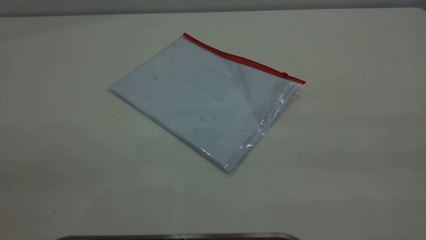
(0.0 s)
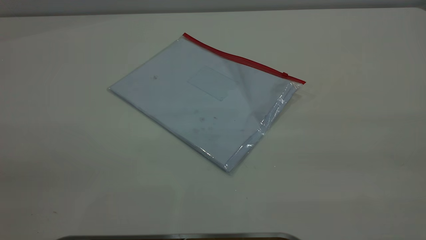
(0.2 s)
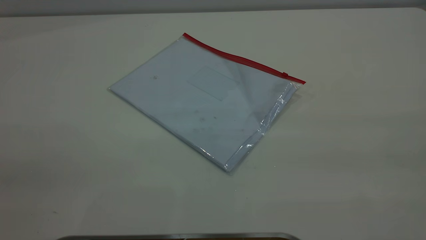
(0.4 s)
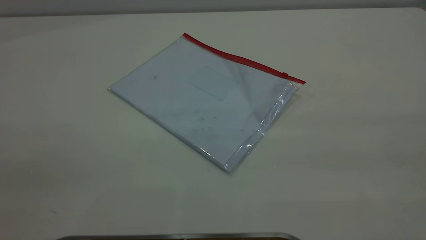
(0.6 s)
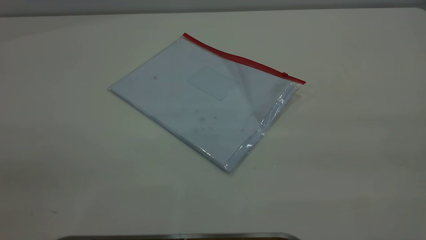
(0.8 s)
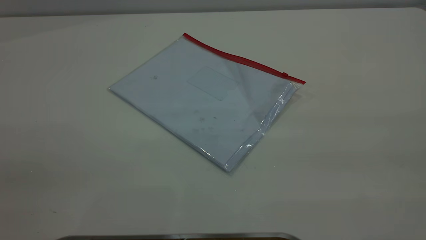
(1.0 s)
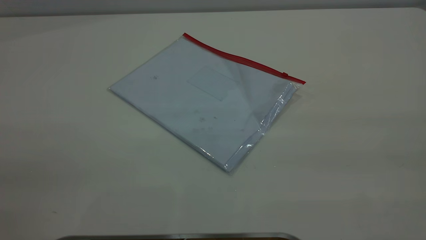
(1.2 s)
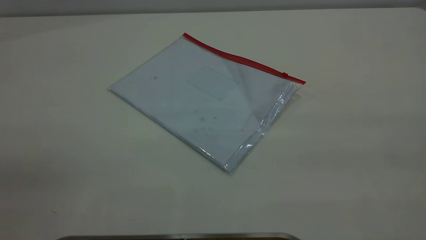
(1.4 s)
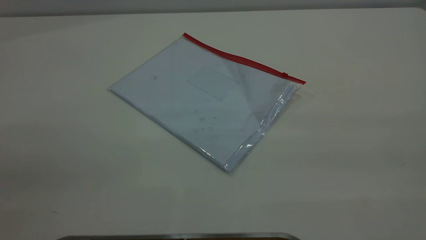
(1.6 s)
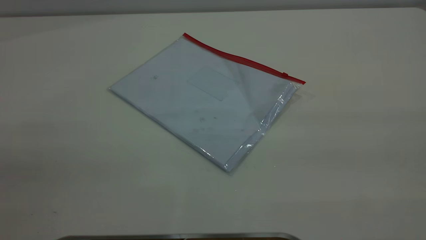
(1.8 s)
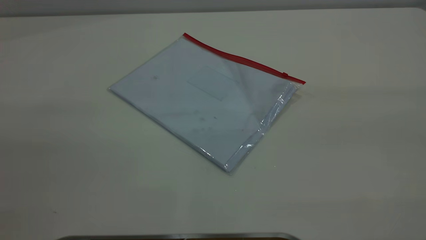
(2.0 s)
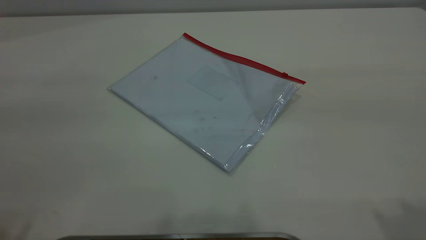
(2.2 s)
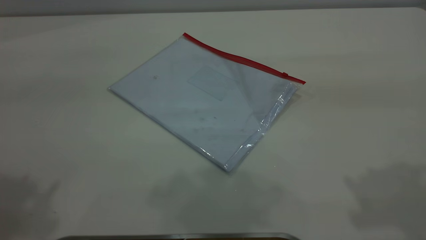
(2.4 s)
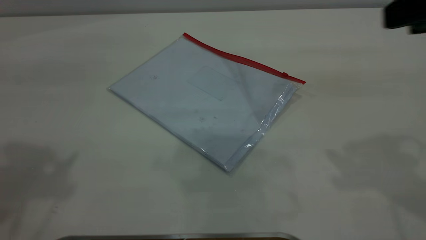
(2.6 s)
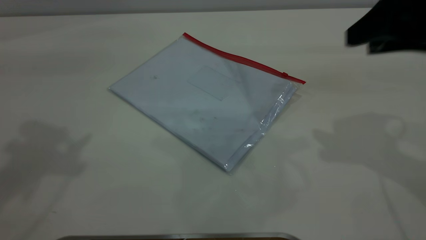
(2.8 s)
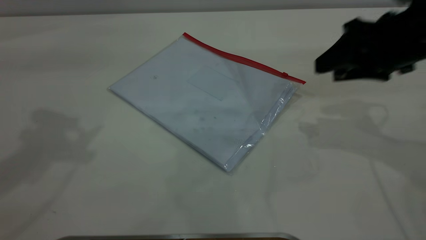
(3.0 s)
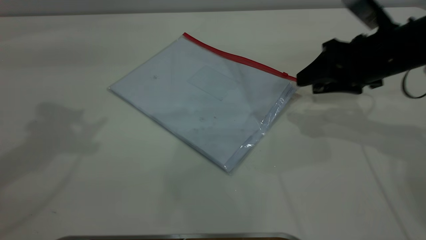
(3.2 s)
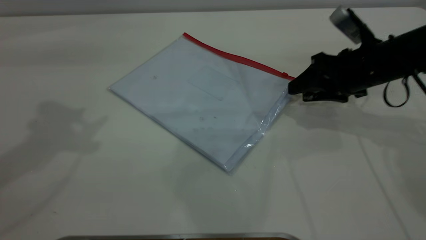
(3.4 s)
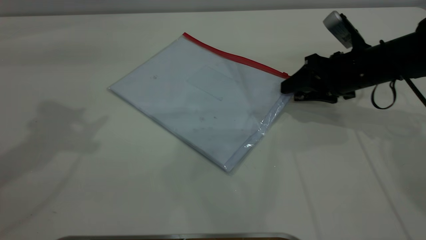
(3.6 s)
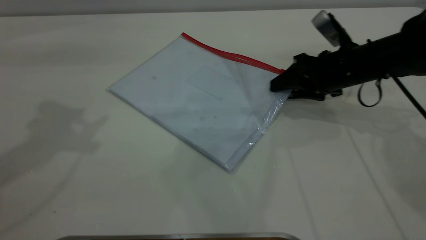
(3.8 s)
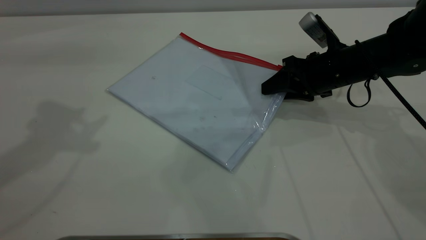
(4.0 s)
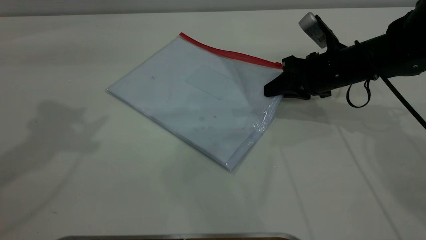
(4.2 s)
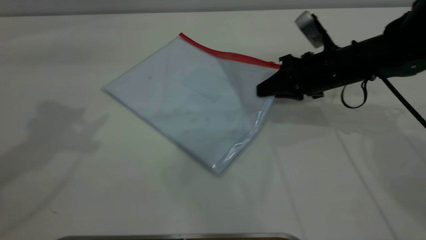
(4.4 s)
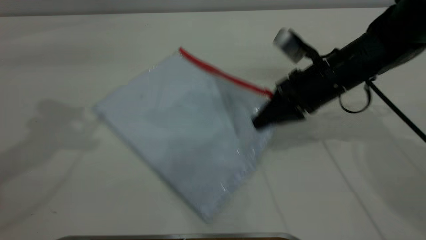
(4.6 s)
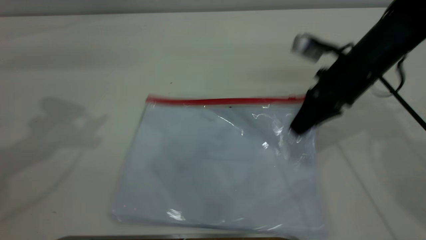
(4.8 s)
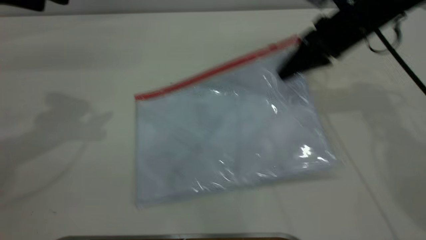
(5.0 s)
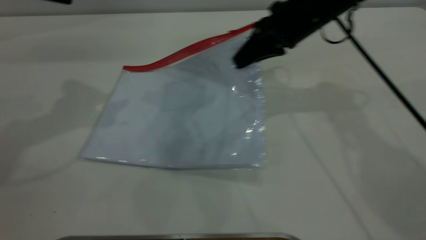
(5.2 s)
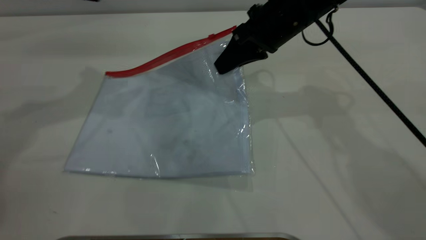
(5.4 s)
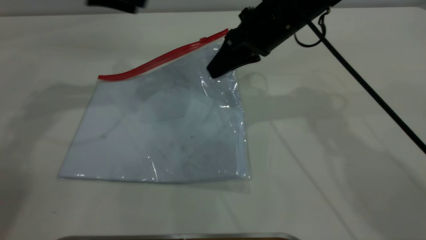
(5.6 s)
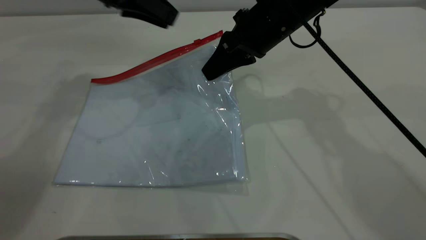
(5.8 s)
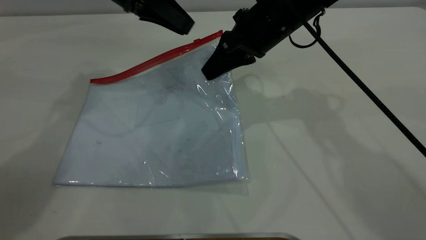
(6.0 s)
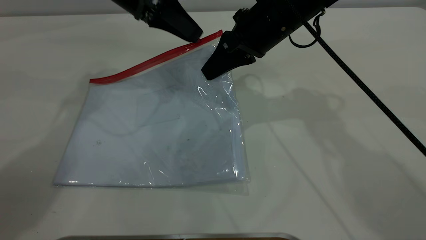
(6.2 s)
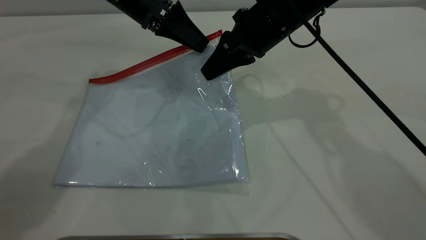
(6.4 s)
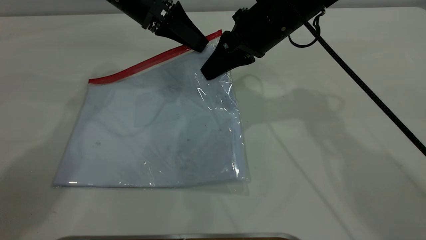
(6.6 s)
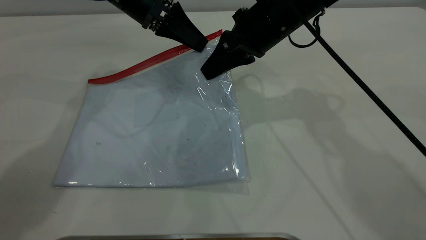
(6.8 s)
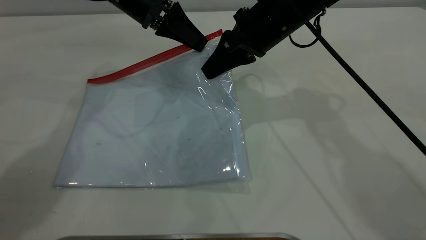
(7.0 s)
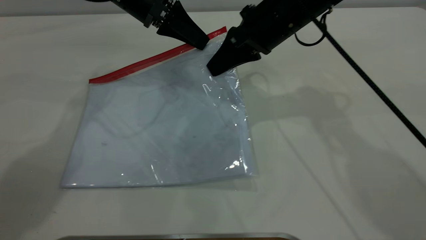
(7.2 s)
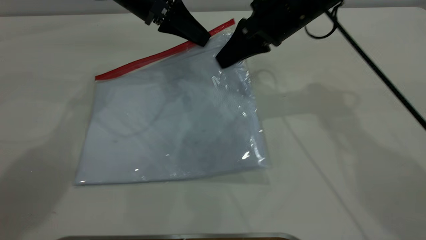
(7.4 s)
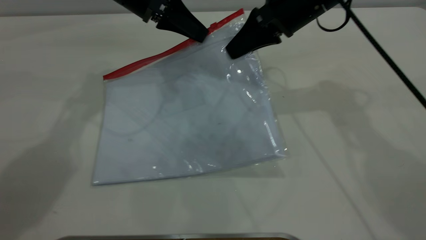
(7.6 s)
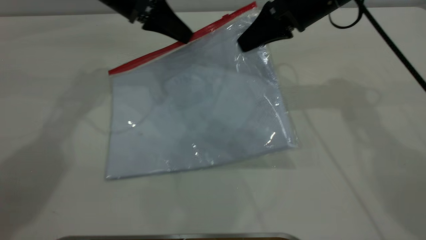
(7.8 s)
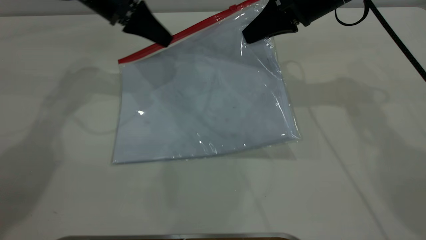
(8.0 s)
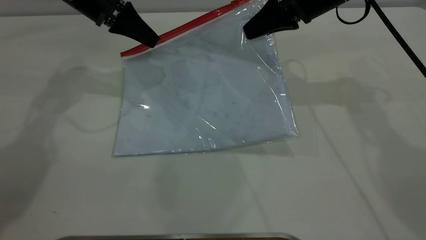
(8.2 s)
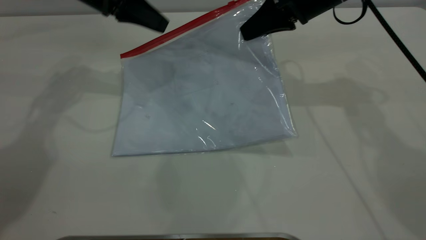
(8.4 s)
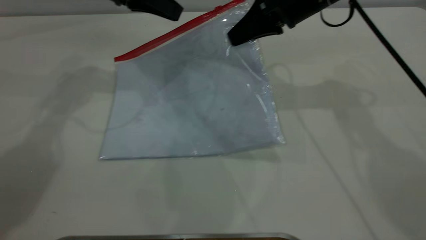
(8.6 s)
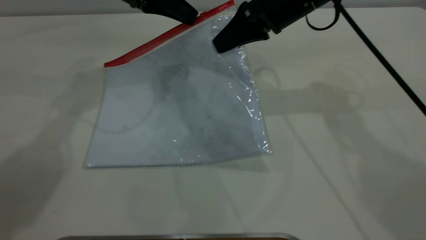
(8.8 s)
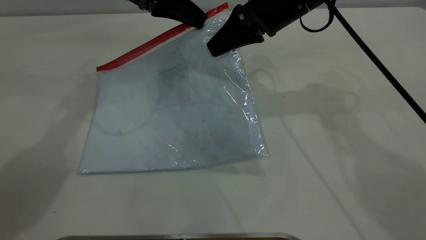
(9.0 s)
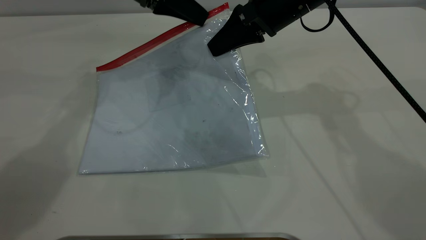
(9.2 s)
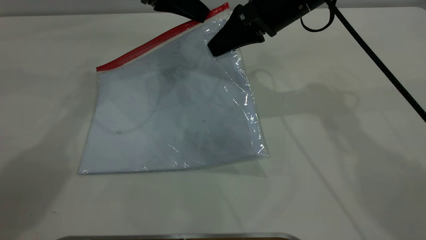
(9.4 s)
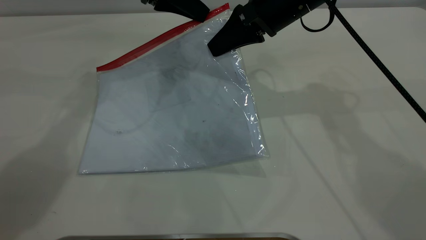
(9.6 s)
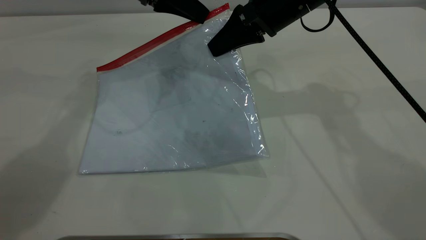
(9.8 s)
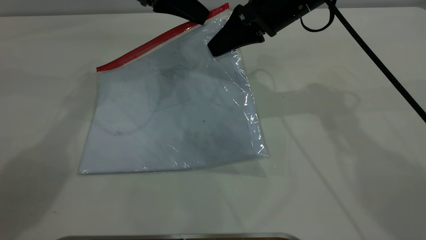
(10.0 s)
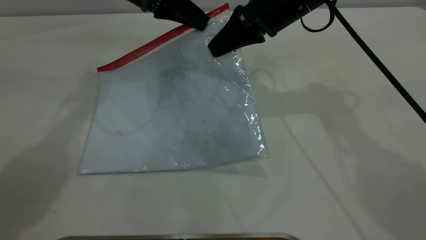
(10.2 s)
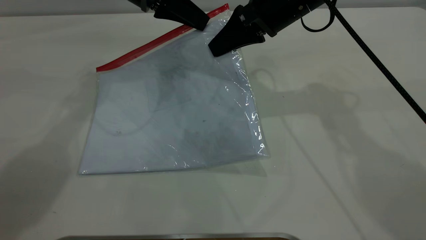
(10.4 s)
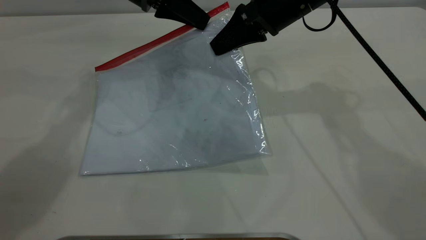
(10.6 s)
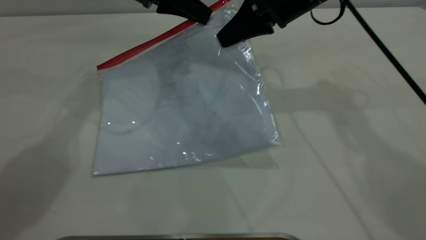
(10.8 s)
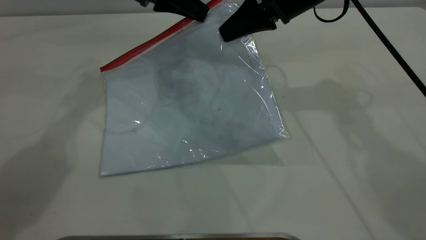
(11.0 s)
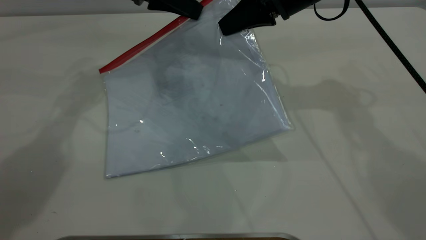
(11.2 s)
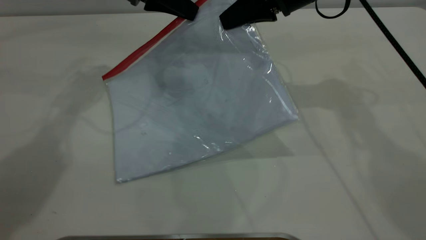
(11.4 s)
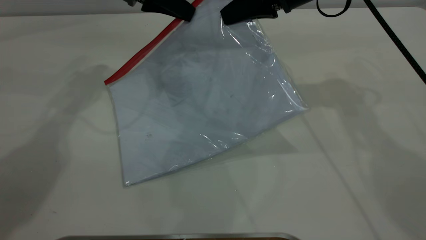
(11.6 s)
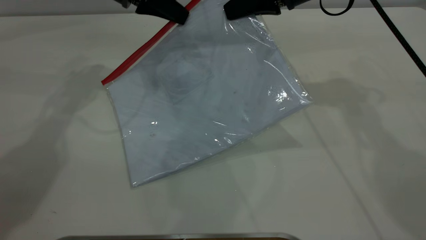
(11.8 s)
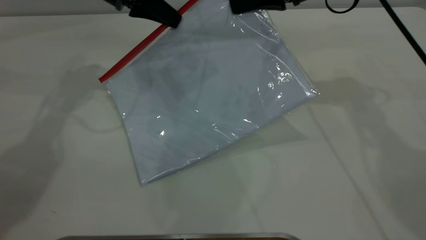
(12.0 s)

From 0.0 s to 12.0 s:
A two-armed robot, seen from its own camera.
Step, from 0.0 s to 5.4 s: Pick up the transparent plastic bag with the right gripper.
From 0.0 s to 1.6 s: Both grippers stay put.
From 1.6 s to 3.0 s: The right gripper travels forward and downward by about 40 cm.
From 3.0 s to 4.4 s: The right gripper shifts about 15 cm downward, forward and to the left, and closes its fingers.
From 4.4 s to 6.0 s: The left gripper goes about 25 cm forward, downward and to the right. Meanwhile the right gripper shifts some 15 cm to the left and upward.
From 6.0 s to 7.6 s: The left gripper closes up, while the right gripper heads to the right, covering roughly 5 cm.
From 7.6 s to 9.0 s: The left gripper opens its fingers.
From 9.0 s to 10.4 s: The left gripper closes up.
From 10.4 s to 12.0 s: The left gripper goes about 5 cm to the left. The right gripper shifts approximately 5 cm to the right.

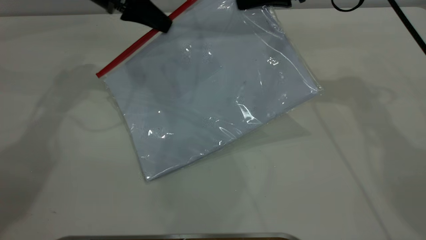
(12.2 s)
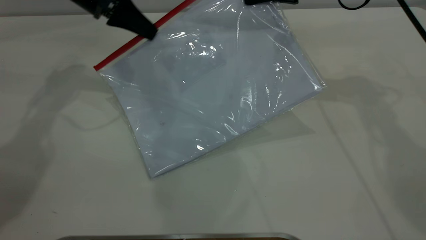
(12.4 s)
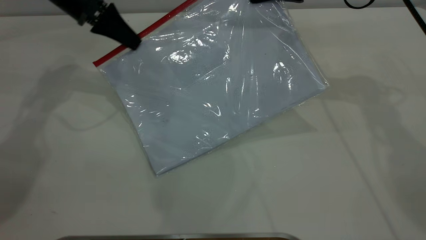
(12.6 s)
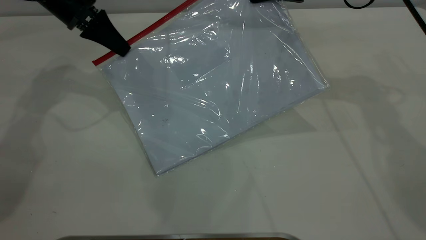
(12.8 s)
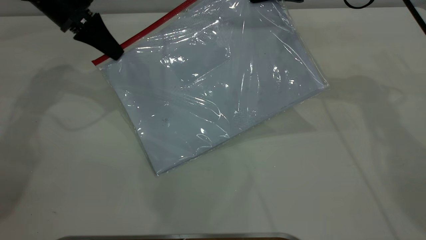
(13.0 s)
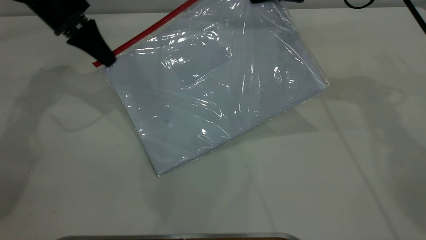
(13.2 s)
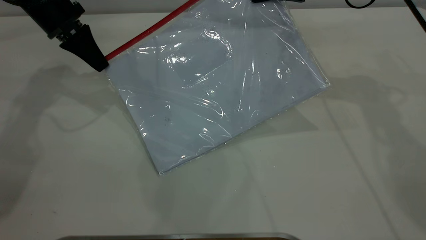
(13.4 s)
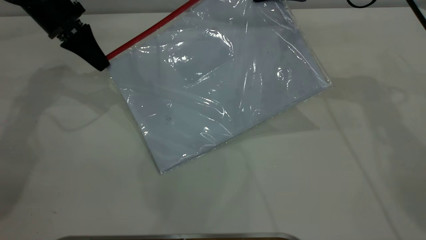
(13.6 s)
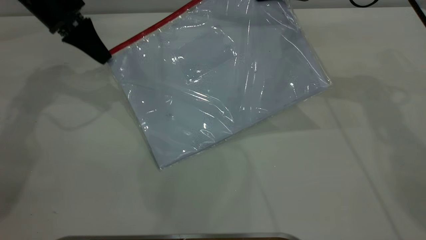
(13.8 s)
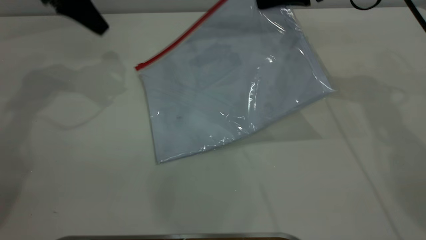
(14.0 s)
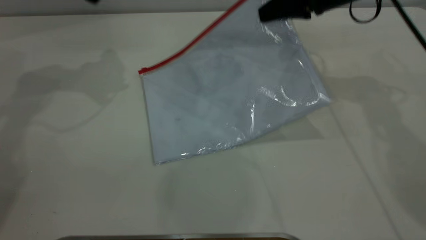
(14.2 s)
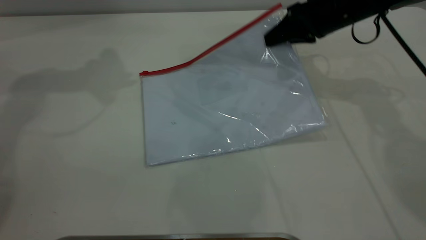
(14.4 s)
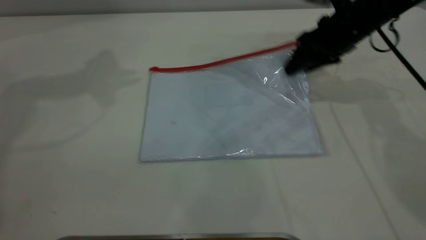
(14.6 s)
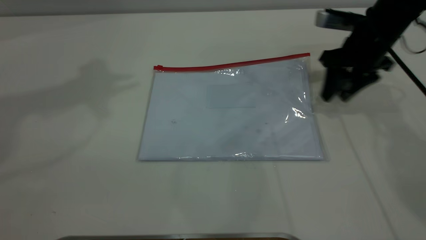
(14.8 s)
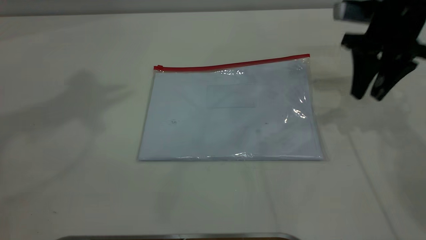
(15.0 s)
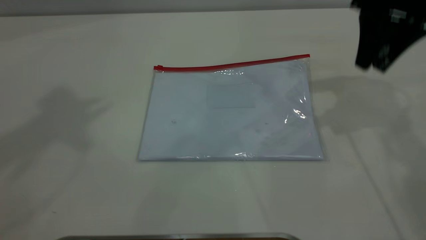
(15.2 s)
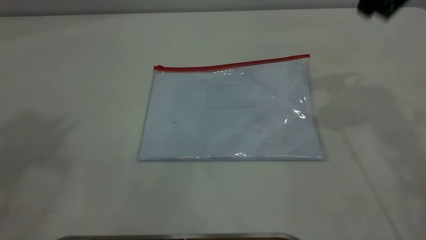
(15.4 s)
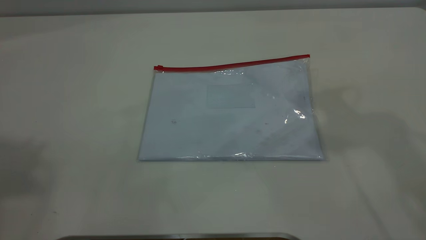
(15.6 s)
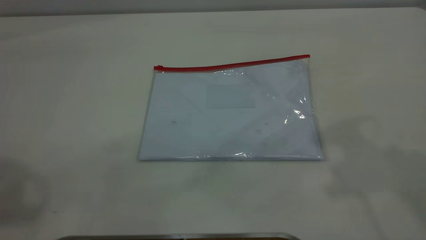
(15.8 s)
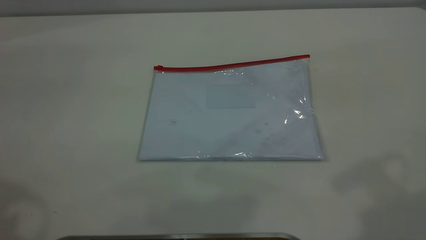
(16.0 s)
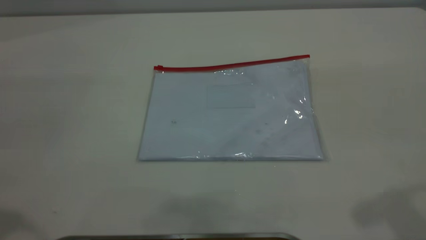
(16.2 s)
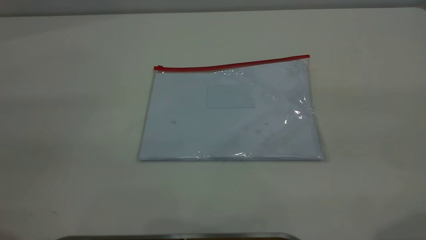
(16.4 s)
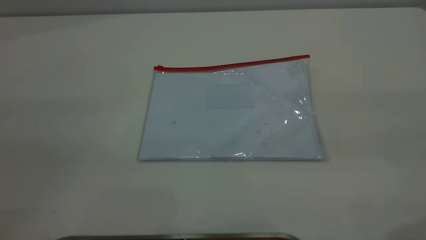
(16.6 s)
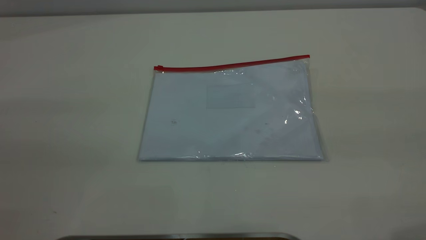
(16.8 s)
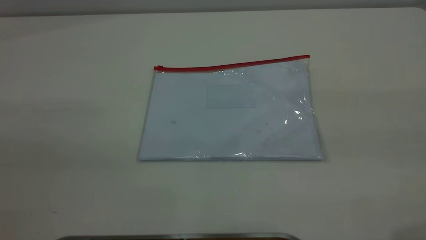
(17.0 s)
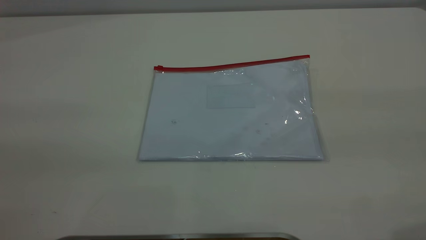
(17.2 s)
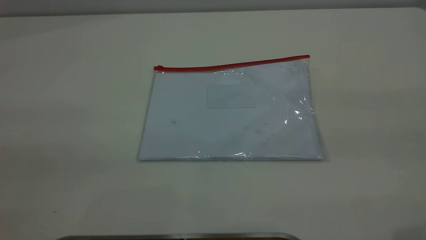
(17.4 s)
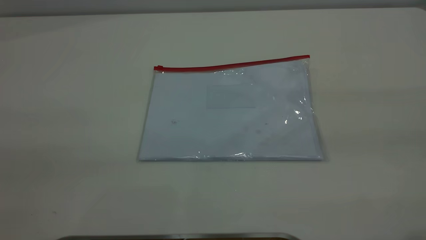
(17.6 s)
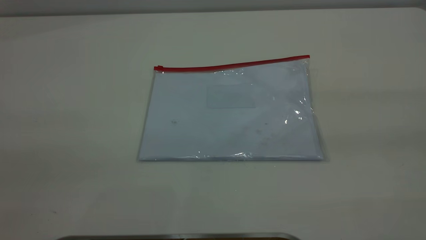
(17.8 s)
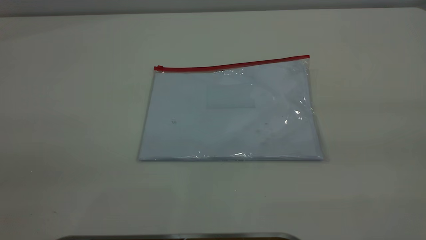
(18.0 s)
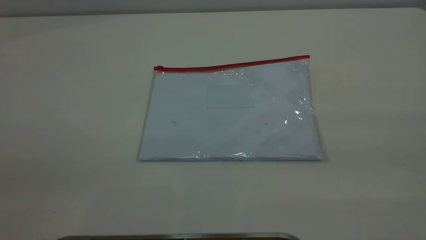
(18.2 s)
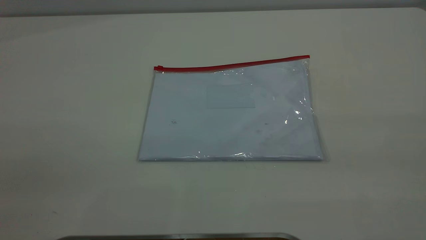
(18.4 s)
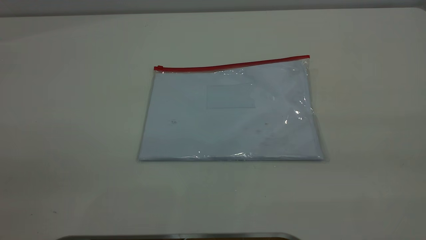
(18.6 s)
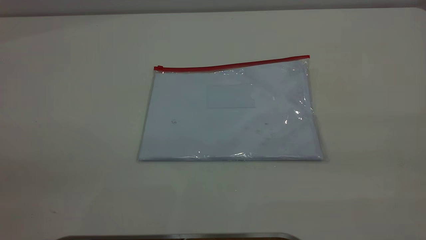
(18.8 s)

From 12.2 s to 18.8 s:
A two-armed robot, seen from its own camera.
Step, from 14.2 s to 15.2 s: Place the transparent plastic bag.
From 12.2 s to 13.8 s: The left gripper goes some 5 cm to the left.
From 13.8 s to 15.4 s: The left gripper goes approximately 50 cm upward and backward. The right gripper is displaced upward and backward by about 15 cm, and opens.
From 15.4 s to 17.2 s: The right gripper goes roughly 25 cm backward.
